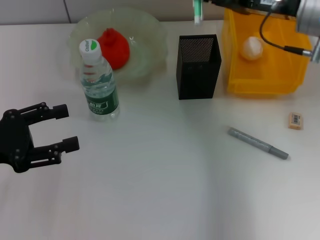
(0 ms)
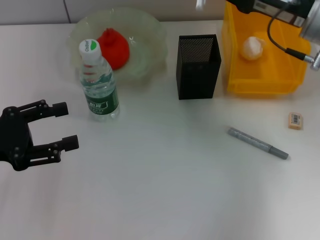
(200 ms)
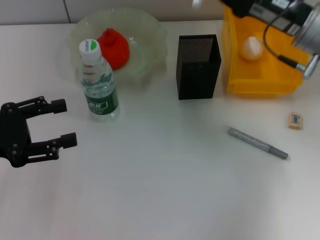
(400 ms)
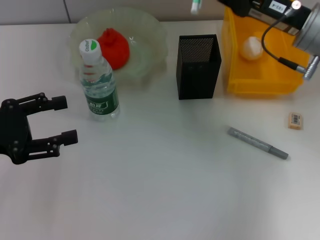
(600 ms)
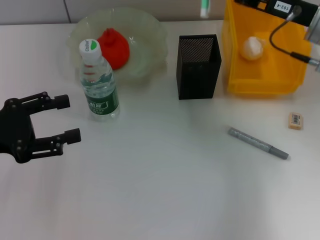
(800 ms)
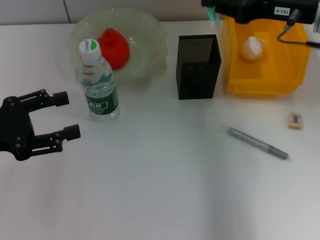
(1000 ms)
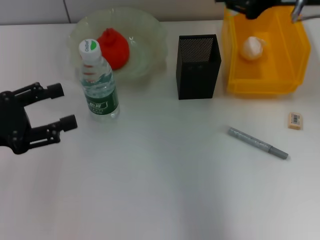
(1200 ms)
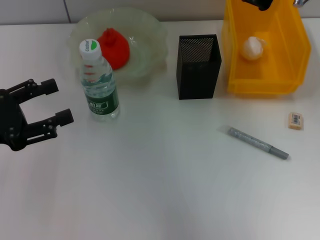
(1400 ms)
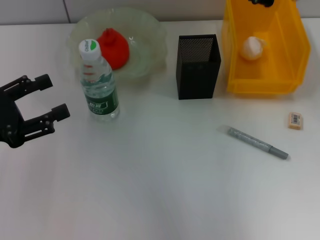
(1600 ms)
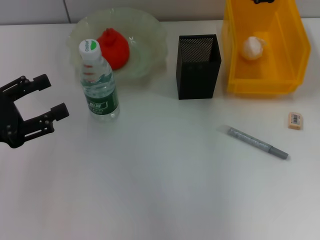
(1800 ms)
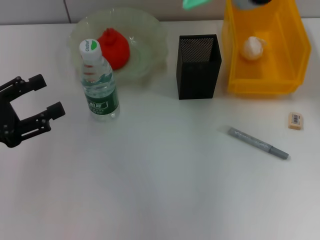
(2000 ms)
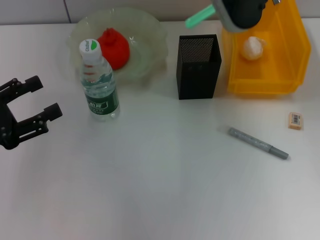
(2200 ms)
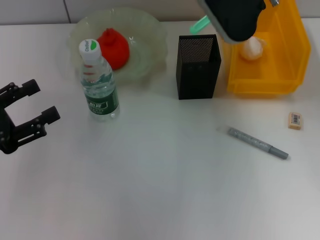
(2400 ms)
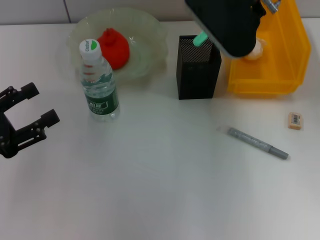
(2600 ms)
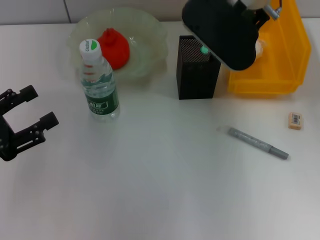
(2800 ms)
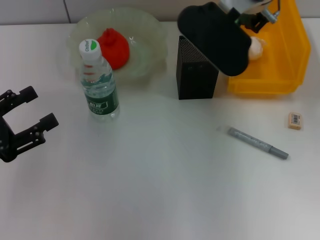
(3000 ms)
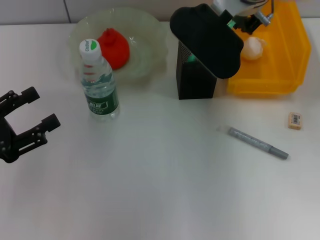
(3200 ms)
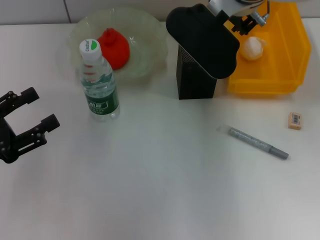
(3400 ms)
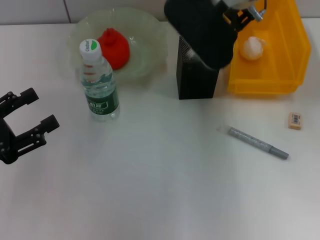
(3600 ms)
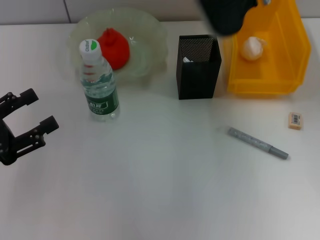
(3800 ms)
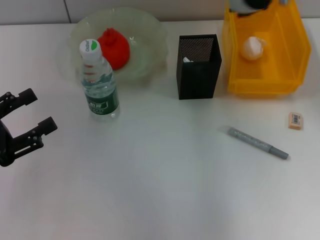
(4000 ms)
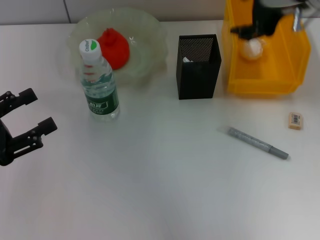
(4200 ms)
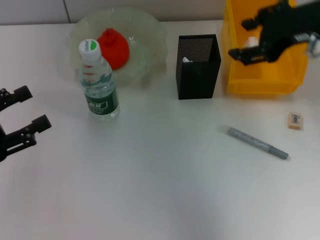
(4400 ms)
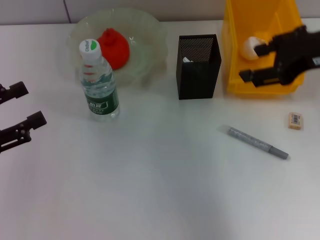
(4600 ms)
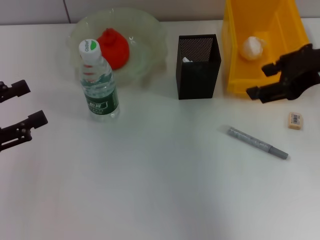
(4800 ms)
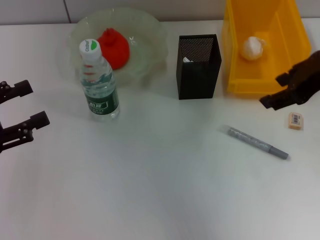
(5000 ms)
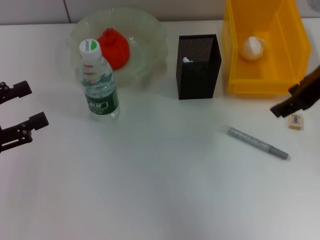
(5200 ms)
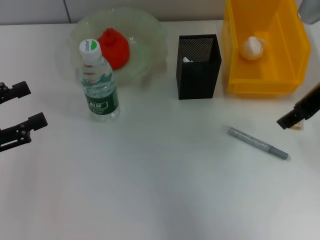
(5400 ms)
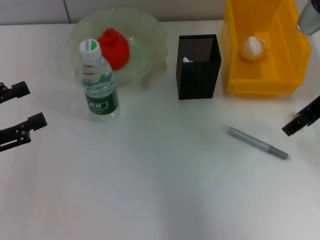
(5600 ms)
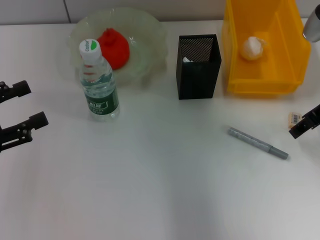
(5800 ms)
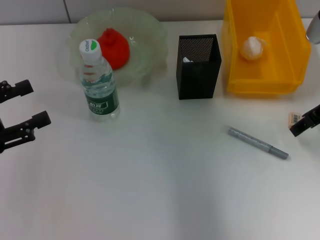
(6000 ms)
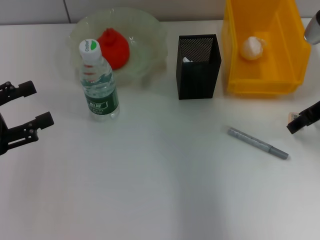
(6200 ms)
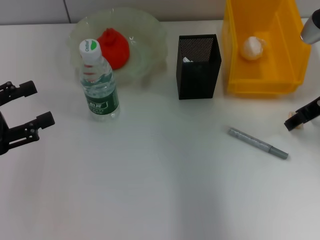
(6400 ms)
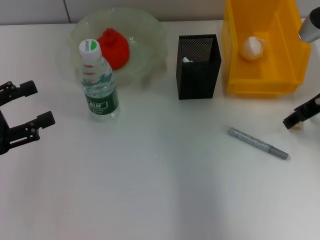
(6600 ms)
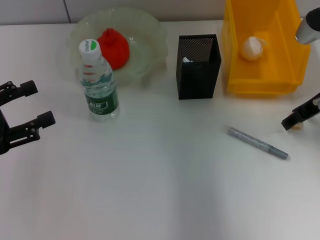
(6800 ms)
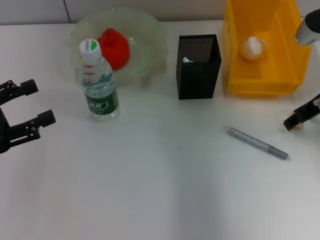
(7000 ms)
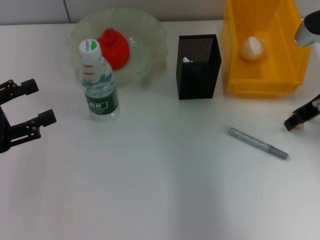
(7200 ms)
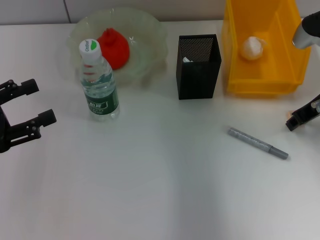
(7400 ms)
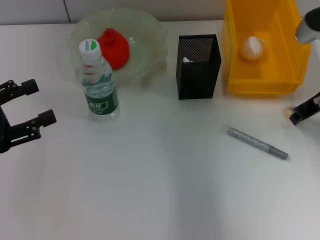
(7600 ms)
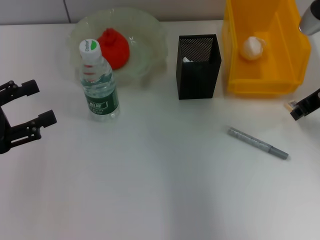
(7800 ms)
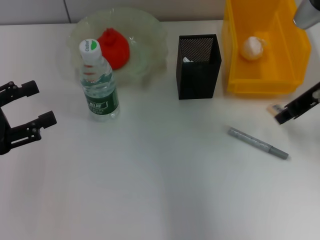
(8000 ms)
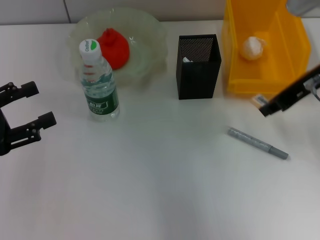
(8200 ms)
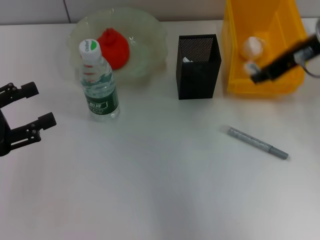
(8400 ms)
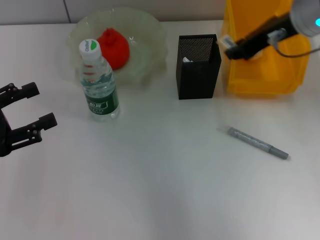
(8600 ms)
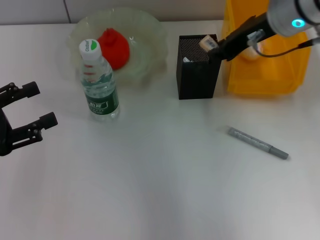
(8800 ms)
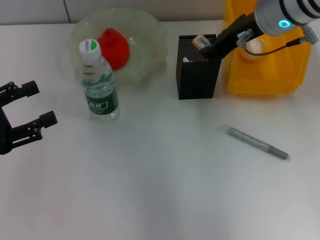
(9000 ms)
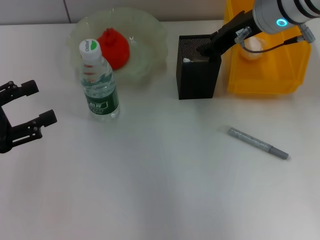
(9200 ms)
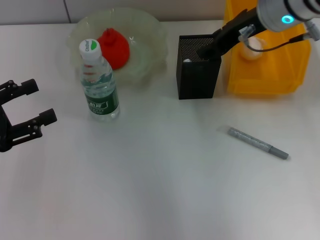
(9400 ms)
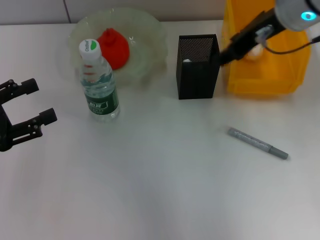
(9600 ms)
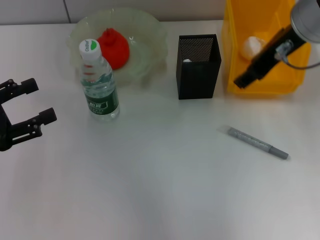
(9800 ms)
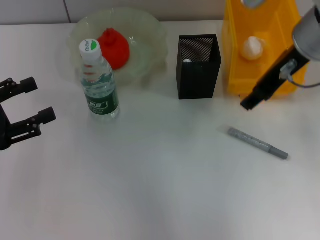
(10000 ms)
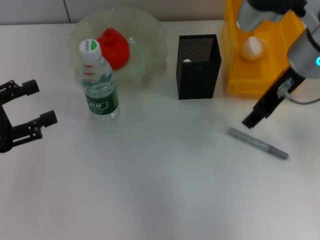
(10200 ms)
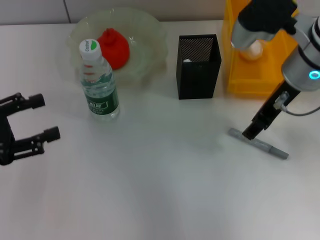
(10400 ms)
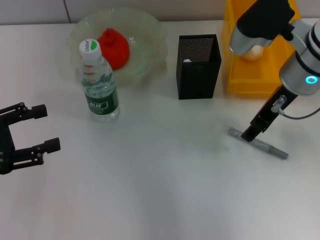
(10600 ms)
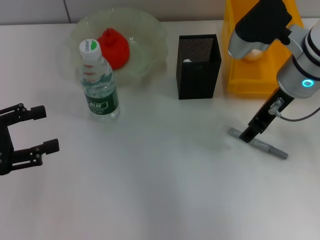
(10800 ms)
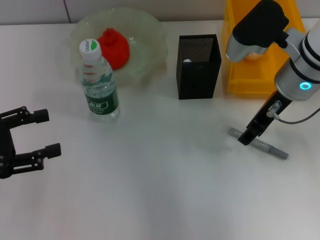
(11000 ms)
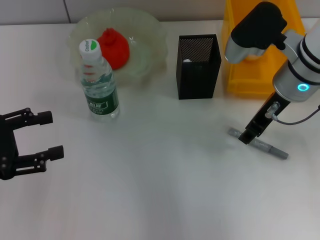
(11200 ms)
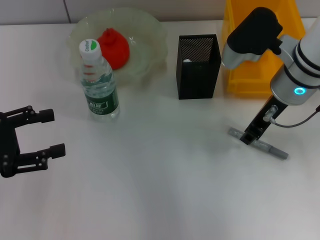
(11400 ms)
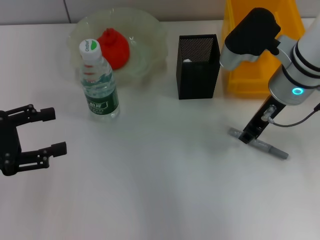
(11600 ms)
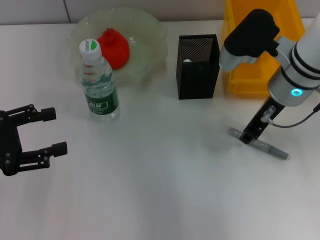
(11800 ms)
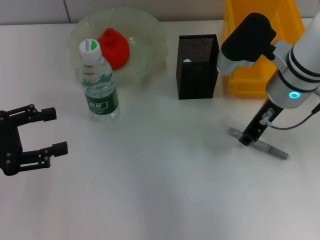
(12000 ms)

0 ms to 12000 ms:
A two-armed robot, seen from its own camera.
Step, 0 ms to 3600 ms: Place the blue utility knife into the pen holder with the right hand.
Step, 3800 ms to 7200 ms: Grab the eraser with the right hand.
Step, 7600 ms to 9000 ms: Put the eraser into the pen holder with the right hand.
0 ms to 1600 ms: The right gripper goes about 10 cm upward.
1600 ms to 3000 ms: The right gripper travels to the left and downward by approximately 10 cm.
3000 ms to 4400 ms: The right gripper moves to the right and backward, some 15 cm, and opens up.
4400 ms to 6000 ms: The right gripper is displaced downward by approximately 10 cm.
6000 ms to 7600 ms: The grippers stay close to where they were, moving slightly.
7600 ms to 9000 ms: The right gripper moves to the left and upward, roughly 15 cm.
9000 ms to 10400 ms: The right gripper shifts by about 5 cm, and opens.
10400 ms to 12000 ms: The right gripper closes up.

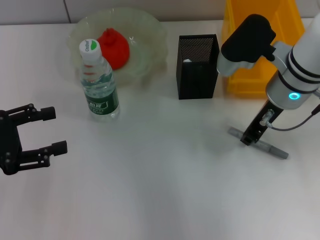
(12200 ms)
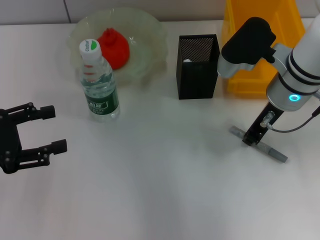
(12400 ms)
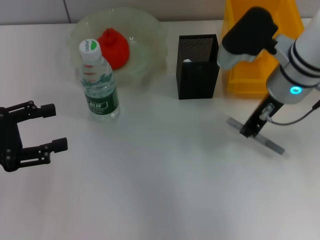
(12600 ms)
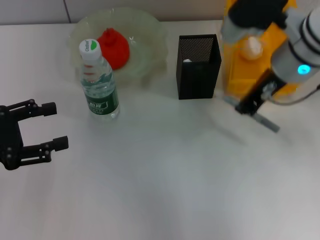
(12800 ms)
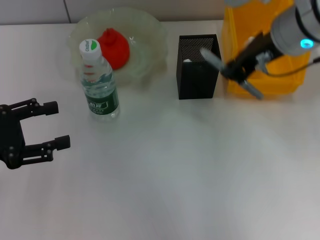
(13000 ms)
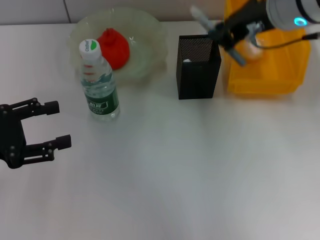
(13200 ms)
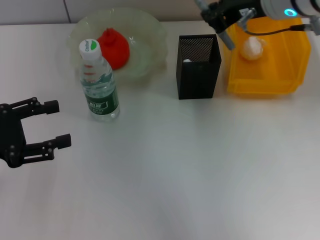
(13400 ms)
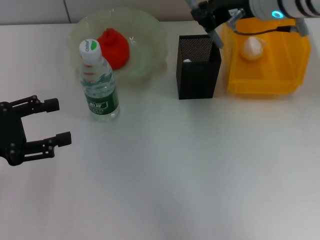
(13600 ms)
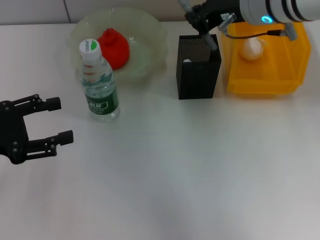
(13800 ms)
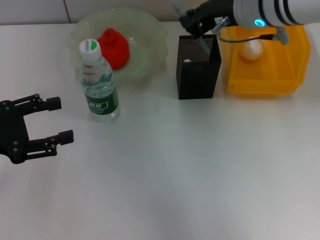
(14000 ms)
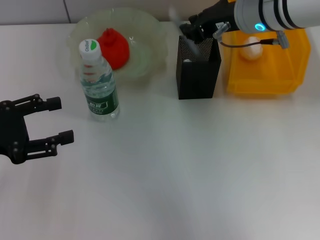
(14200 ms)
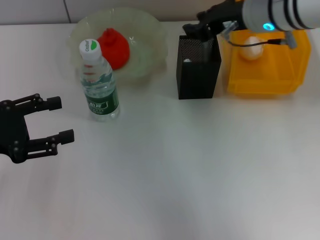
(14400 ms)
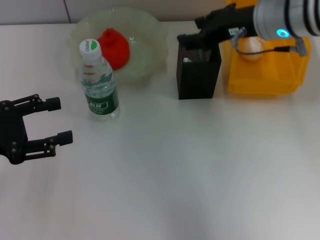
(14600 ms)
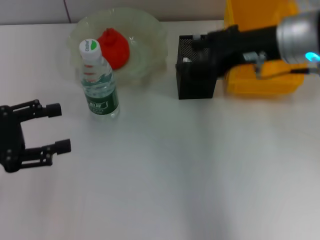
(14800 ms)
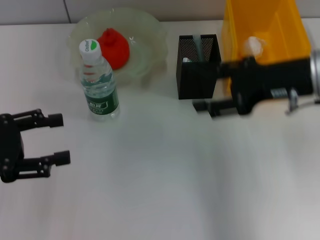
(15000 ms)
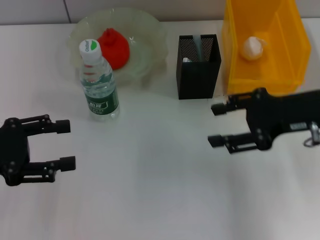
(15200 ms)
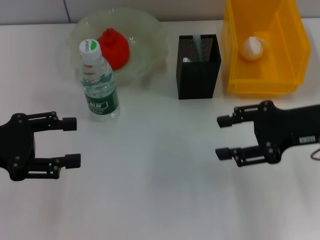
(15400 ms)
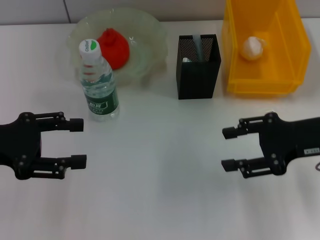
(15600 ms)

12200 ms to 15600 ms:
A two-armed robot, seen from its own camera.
Step, 12200 ms to 14200 ms: Place the gray glue into the pen holder with the right hand.
12200 ms to 13800 ms: The right gripper travels upward by some 10 cm.
13800 ms to 15600 ms: The right gripper moves to the right, backward and downward, some 20 cm, and opens its fingers.
